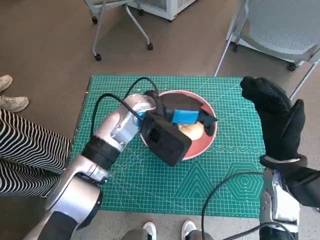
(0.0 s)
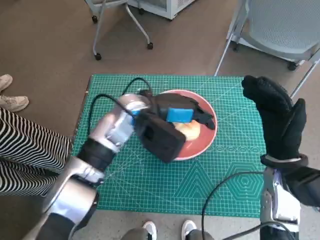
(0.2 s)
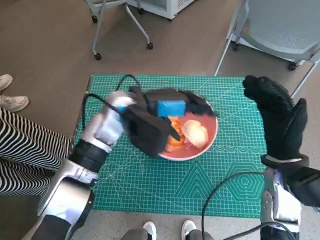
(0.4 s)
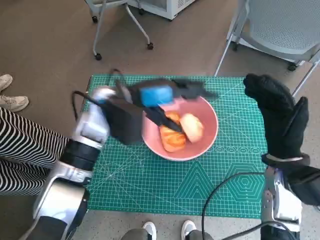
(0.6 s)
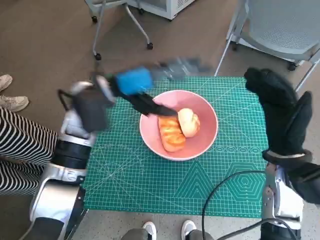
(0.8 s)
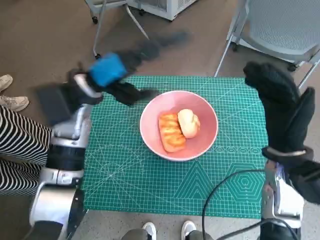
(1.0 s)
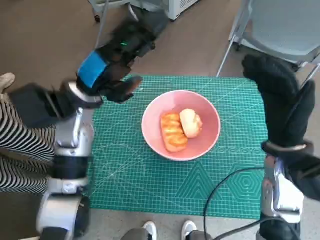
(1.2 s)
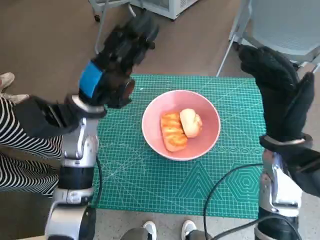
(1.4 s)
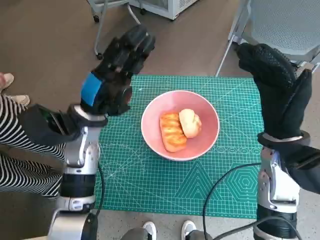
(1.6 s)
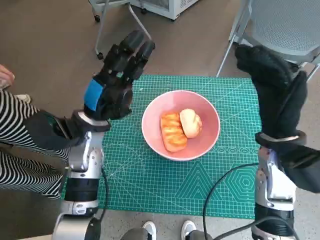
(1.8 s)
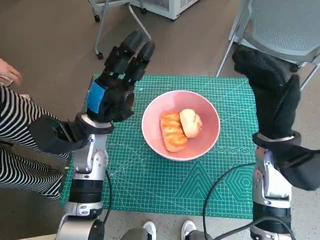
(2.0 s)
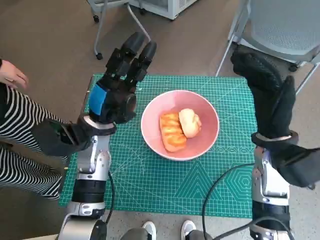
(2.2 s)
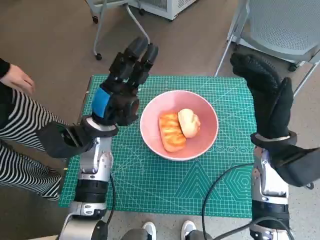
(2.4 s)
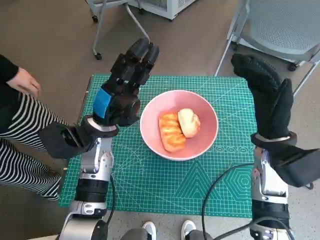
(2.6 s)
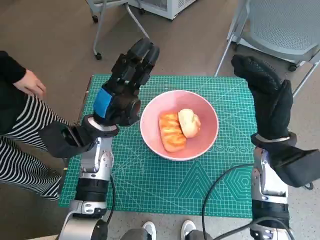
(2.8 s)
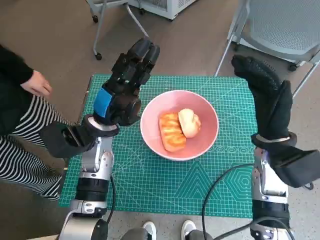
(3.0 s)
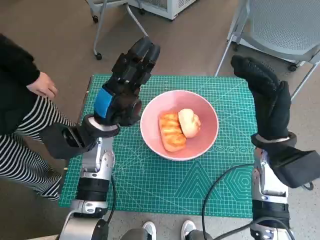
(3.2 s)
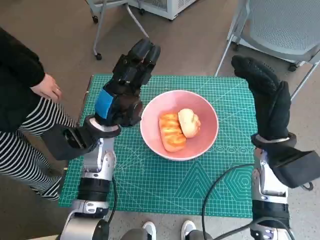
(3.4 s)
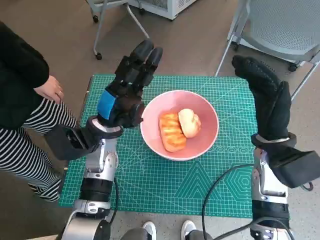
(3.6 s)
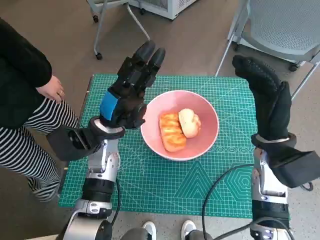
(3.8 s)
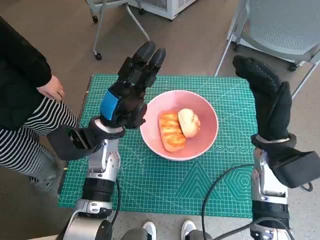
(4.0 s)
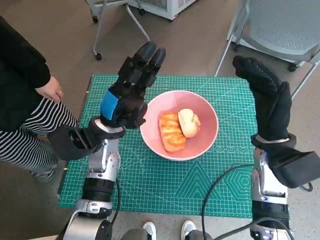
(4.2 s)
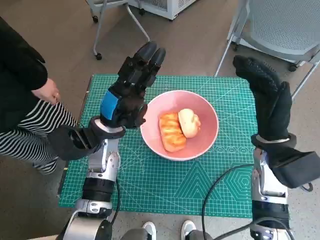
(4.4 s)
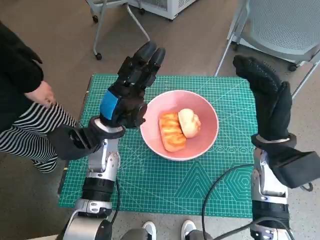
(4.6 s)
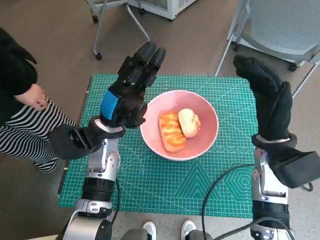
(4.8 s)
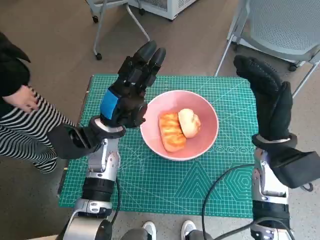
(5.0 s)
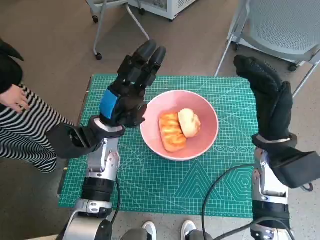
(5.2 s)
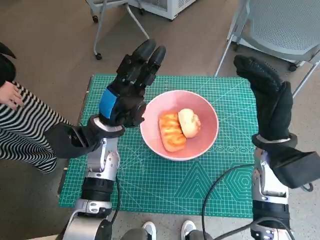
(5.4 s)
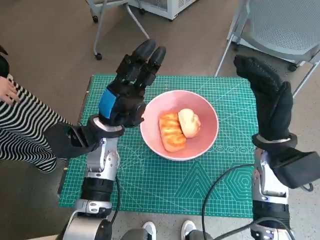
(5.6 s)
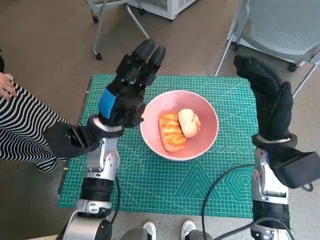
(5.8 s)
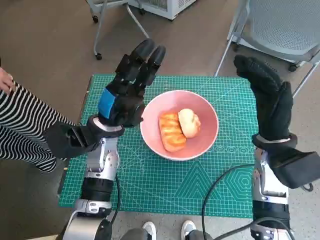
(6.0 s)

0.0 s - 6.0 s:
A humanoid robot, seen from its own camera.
Task of the whole recording: Push the bowl into the center of the table and put the bread into the bowl.
0.0 s - 1.6 s: The right hand changes place by about 5 cm, while the left hand shifts some 10 cm to the left.
3.0 s - 6.0 s: Both hands stay put.
